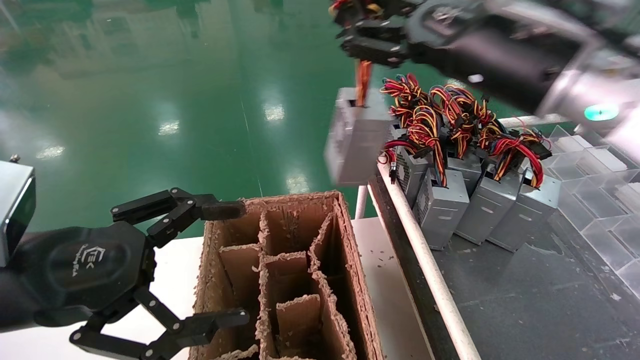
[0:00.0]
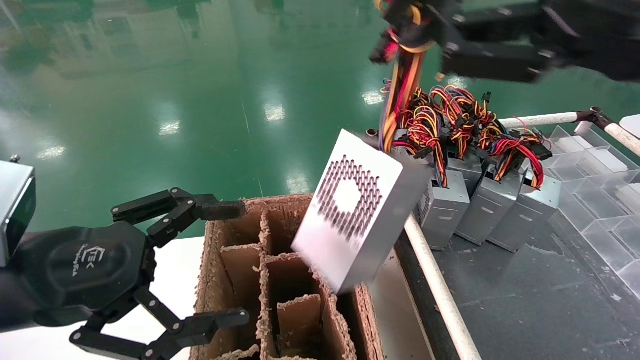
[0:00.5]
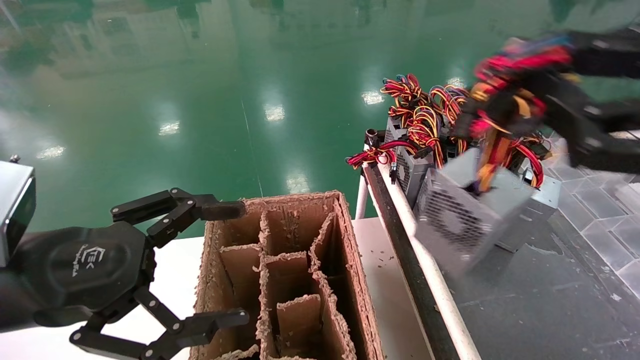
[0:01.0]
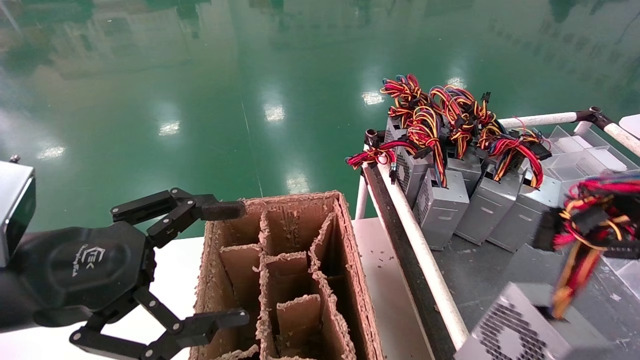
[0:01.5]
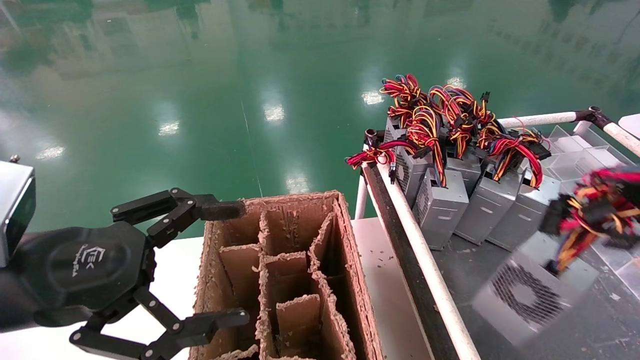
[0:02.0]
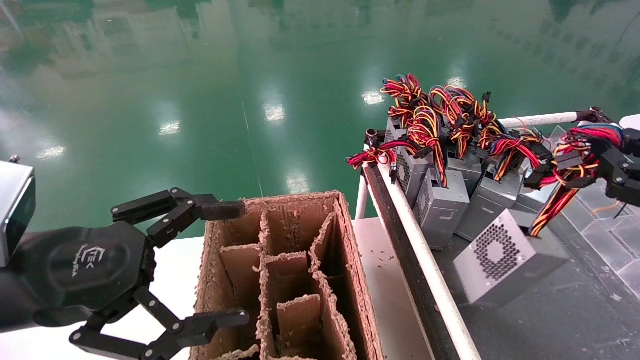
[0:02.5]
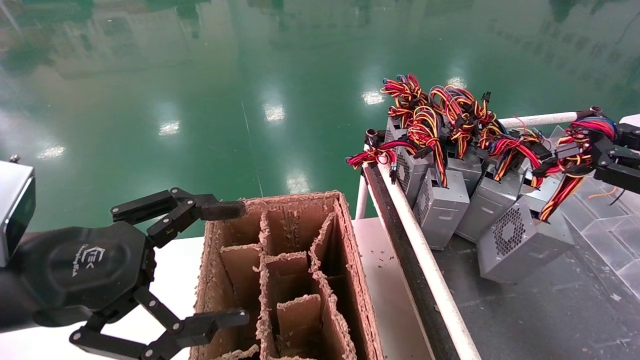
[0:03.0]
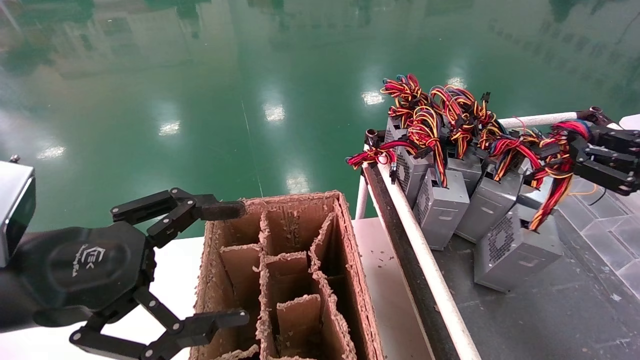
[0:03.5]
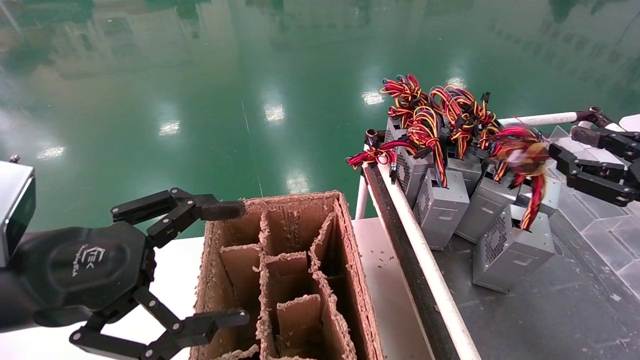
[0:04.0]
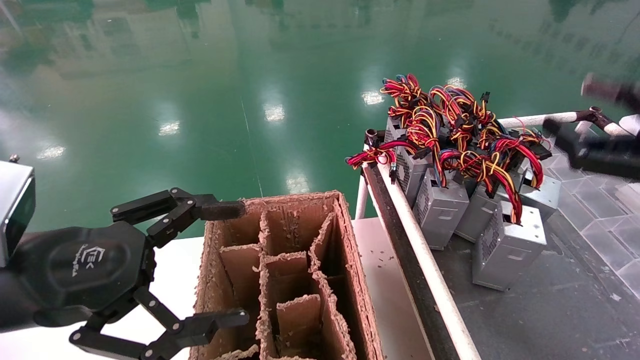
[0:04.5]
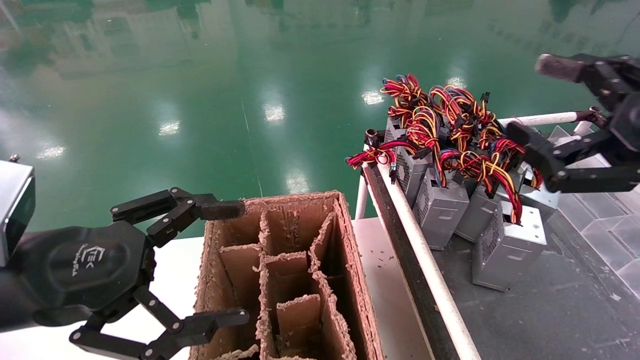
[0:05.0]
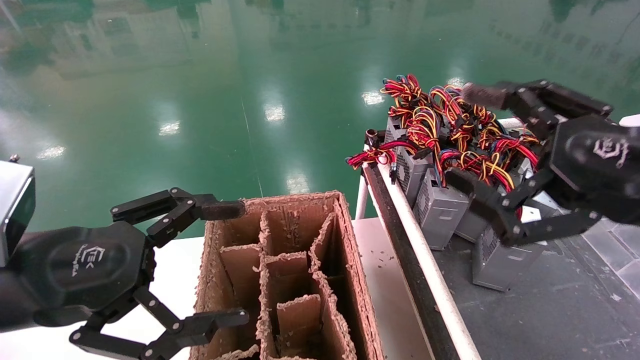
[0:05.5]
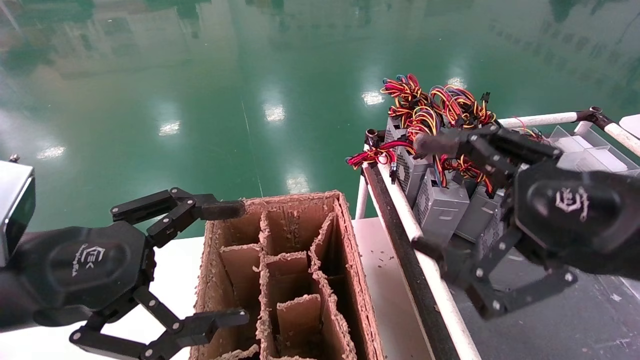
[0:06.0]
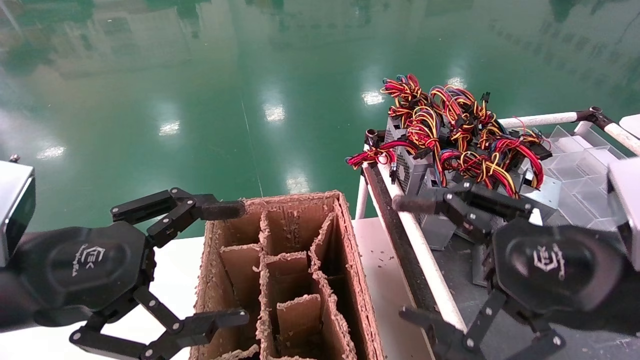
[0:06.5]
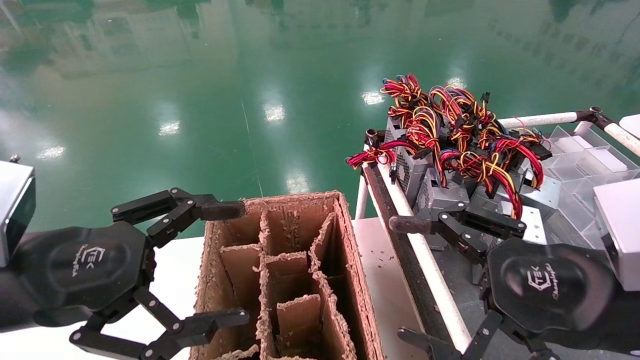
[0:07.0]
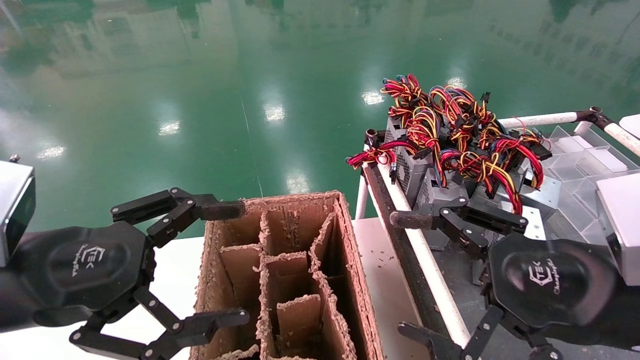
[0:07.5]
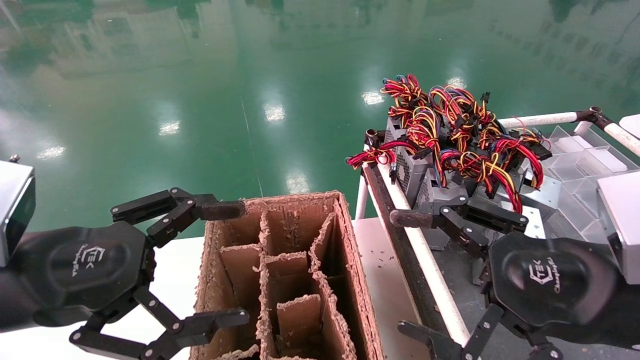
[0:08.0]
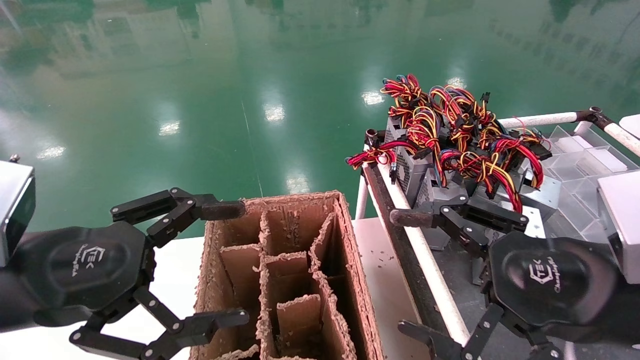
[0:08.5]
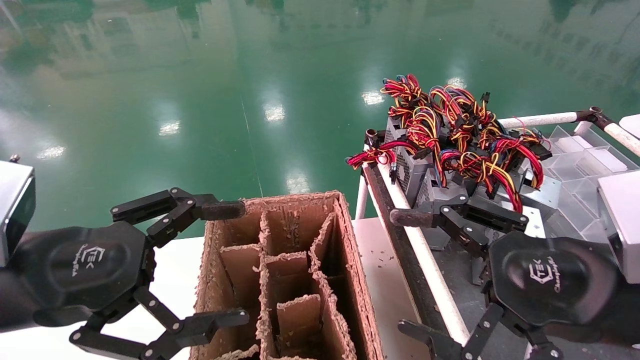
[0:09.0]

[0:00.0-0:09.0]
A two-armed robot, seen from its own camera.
Step, 0:00.0 to 0:04.0: Place the power supply on the operating table.
0:00.0 to 0:02.0: The right gripper travels to the right, backward and downward by approximately 30 cm.
0:02.0 to 0:04.5: The right gripper heads forward, covering roughly 10 cm, and opens up.
0:04.5 to 0:07.0: The right gripper travels to the left and downward by approximately 15 cm.
0:07.0 to 0:09.0: Neither gripper changes place.
